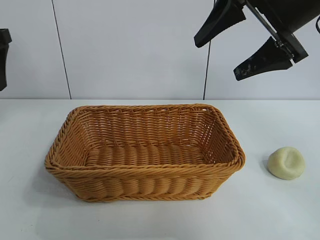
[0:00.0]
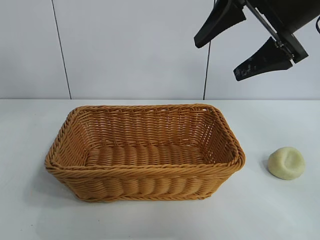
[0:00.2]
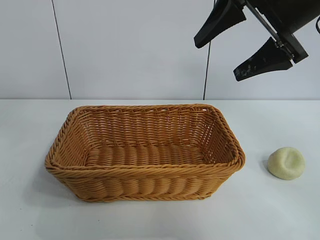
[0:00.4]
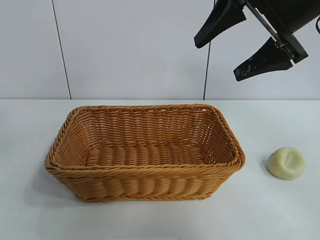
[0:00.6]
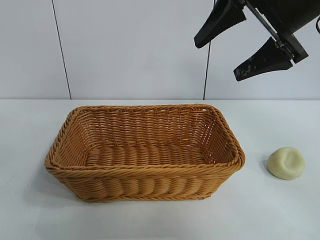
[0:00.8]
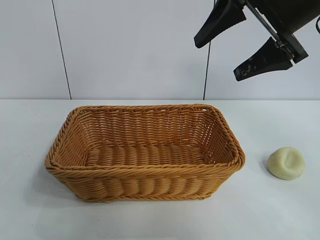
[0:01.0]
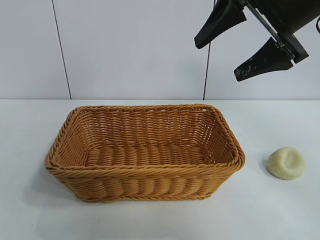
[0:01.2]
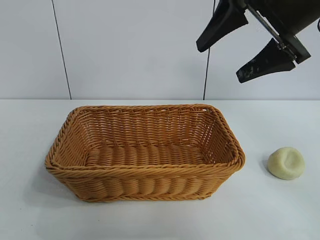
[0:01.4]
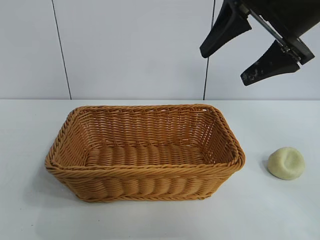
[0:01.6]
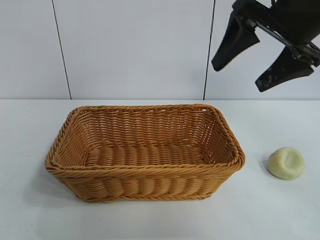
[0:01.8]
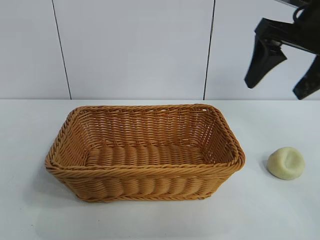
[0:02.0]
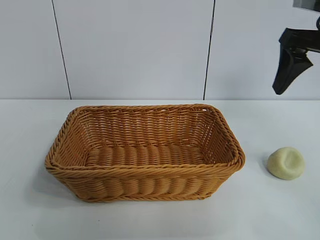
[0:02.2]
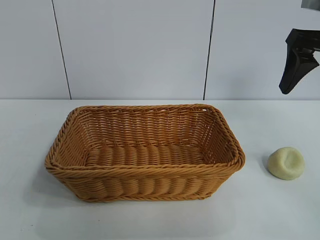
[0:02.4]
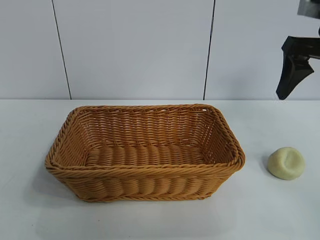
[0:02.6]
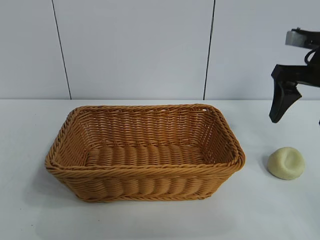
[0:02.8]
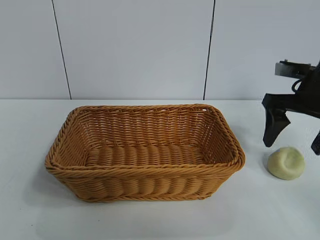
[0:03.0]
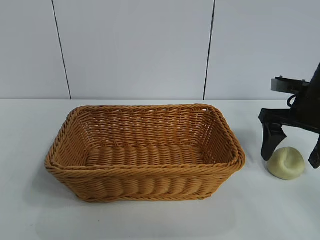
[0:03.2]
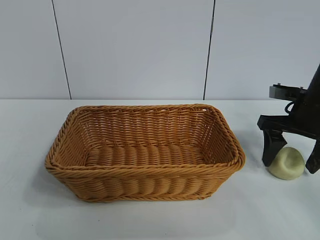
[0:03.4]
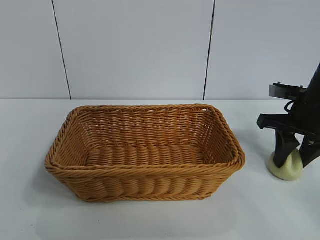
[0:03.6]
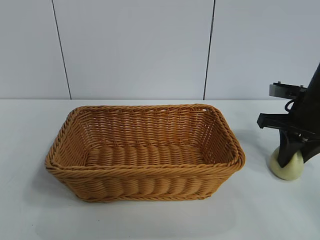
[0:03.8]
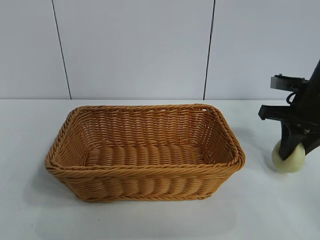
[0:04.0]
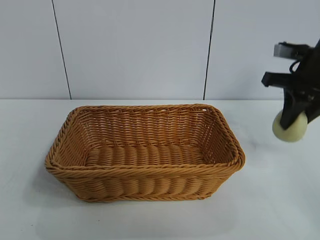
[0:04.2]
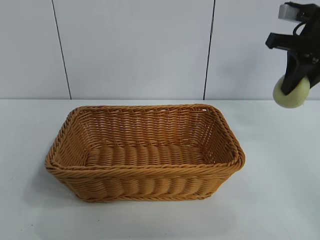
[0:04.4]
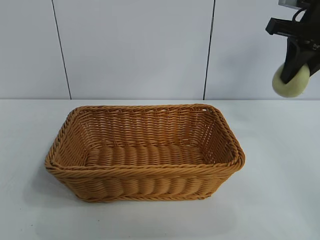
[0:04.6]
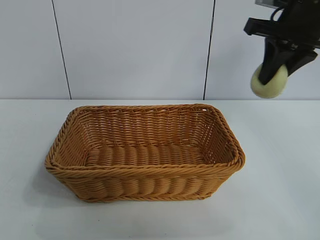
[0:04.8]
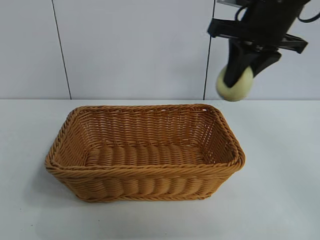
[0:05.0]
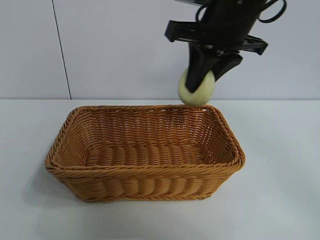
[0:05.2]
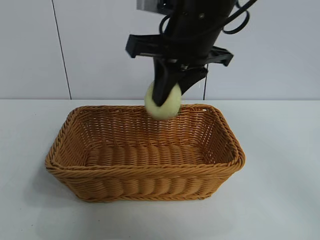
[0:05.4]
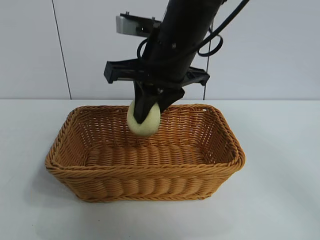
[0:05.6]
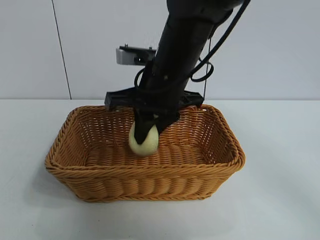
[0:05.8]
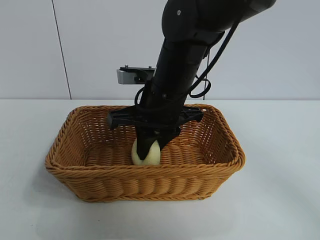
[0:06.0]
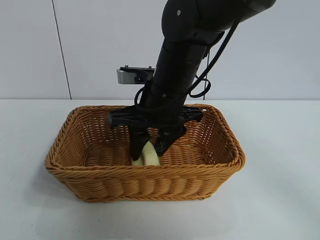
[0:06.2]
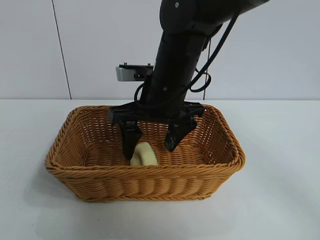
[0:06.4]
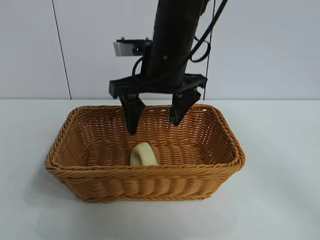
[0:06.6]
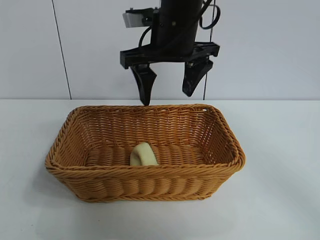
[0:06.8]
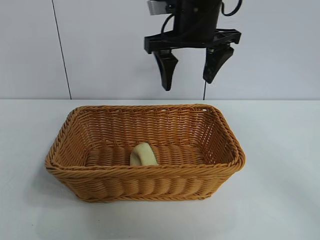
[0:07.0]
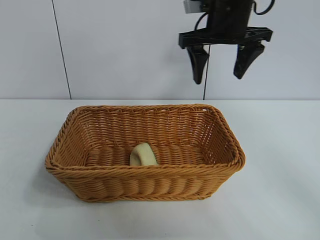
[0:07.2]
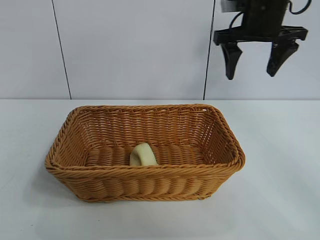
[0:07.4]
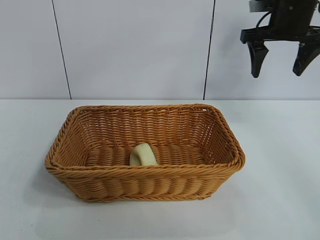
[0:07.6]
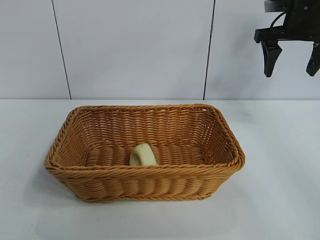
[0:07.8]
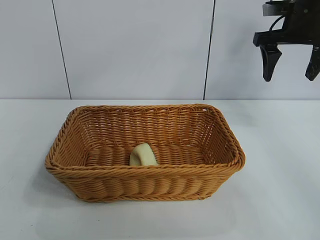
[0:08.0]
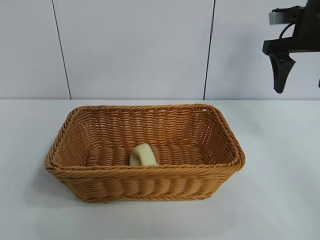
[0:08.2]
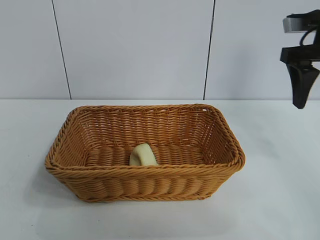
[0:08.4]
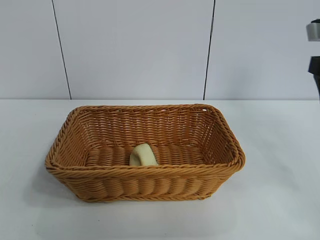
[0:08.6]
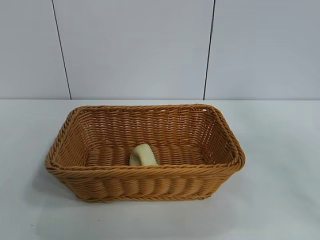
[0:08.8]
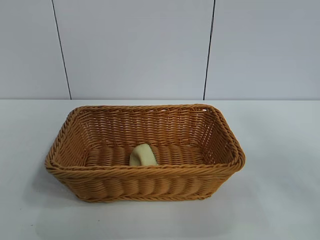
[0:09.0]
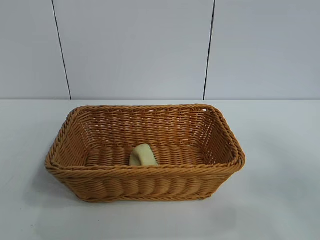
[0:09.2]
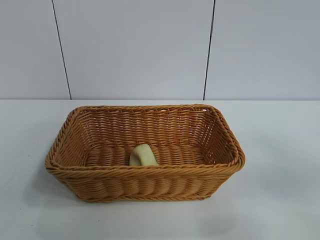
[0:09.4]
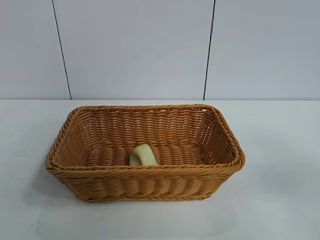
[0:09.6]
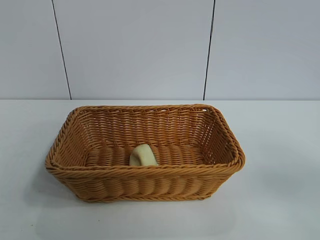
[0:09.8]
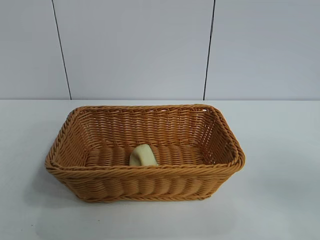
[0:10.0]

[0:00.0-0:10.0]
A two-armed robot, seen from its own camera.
Task of the whole recording: pick up the egg yolk pastry and put it into the basket.
Step, 0:00.0 to 0:03.6: Grasp egg yolk pastry with right gripper.
Step, 0:04.0 to 0:06.2: Place the egg yolk pastry in the basket with right gripper.
